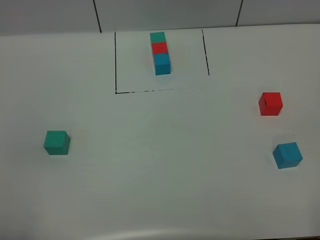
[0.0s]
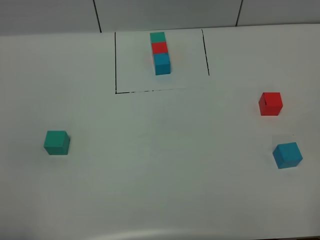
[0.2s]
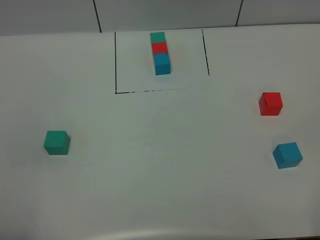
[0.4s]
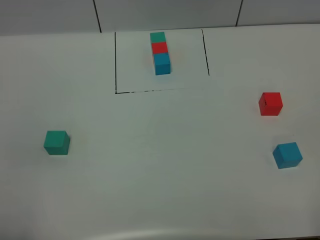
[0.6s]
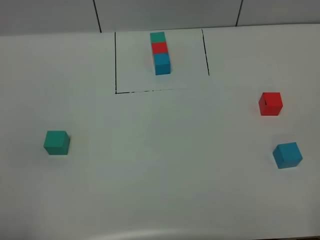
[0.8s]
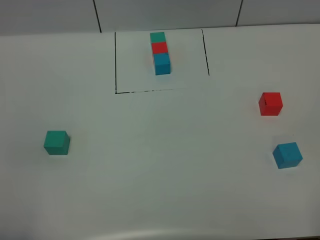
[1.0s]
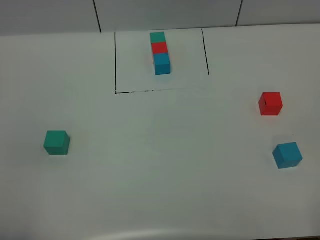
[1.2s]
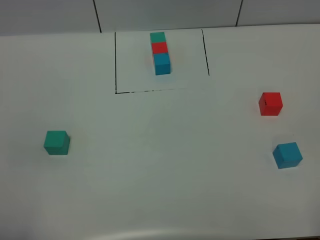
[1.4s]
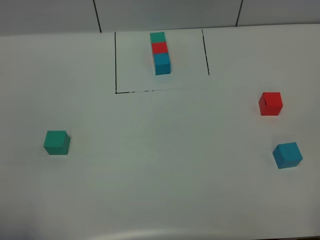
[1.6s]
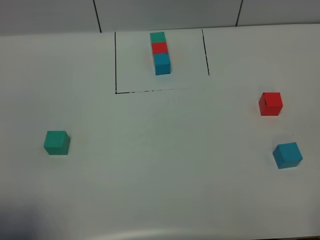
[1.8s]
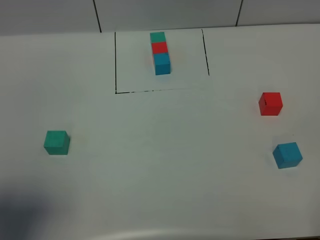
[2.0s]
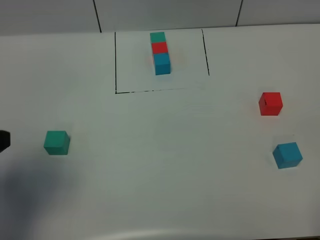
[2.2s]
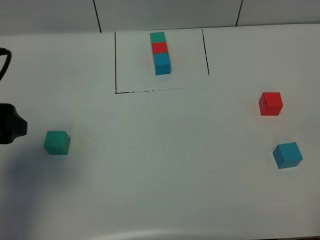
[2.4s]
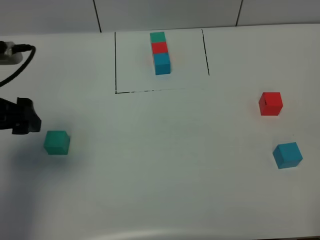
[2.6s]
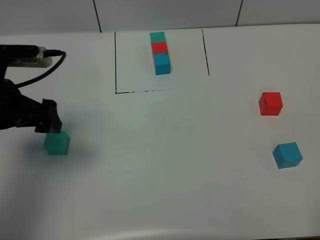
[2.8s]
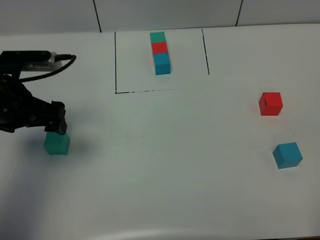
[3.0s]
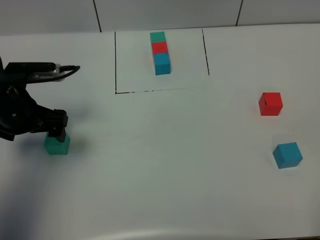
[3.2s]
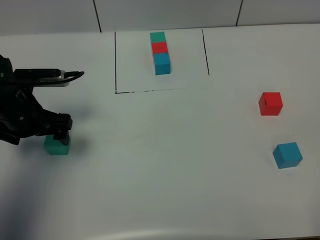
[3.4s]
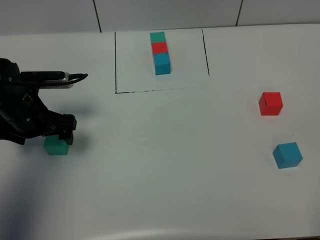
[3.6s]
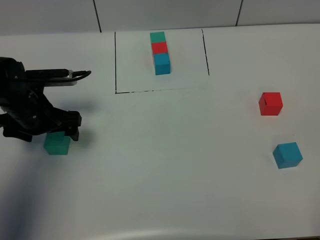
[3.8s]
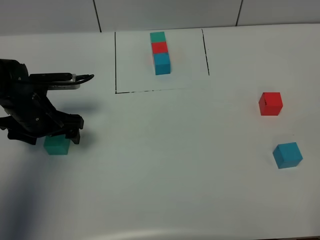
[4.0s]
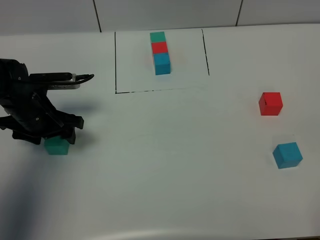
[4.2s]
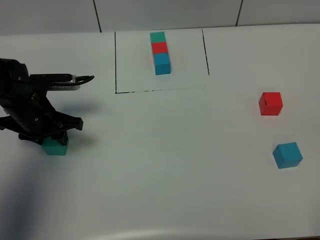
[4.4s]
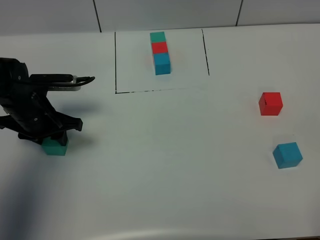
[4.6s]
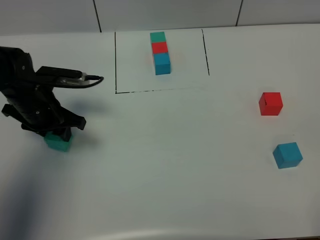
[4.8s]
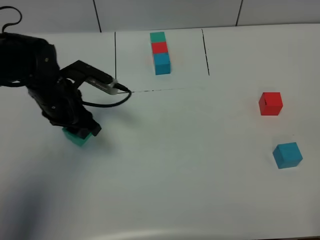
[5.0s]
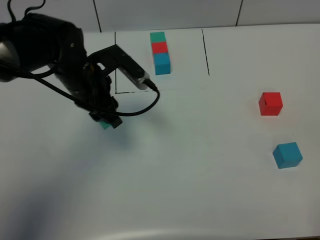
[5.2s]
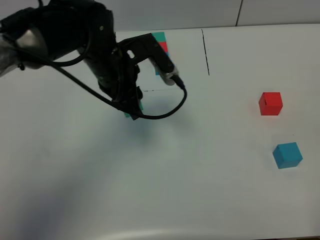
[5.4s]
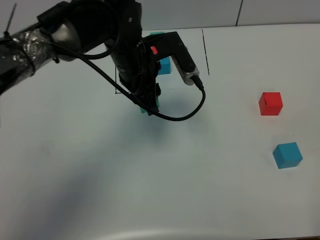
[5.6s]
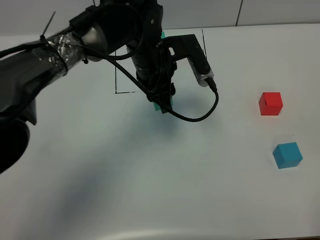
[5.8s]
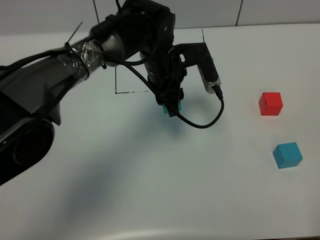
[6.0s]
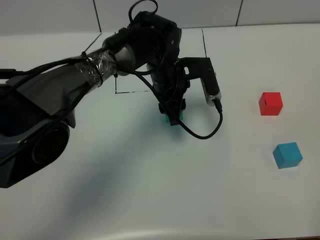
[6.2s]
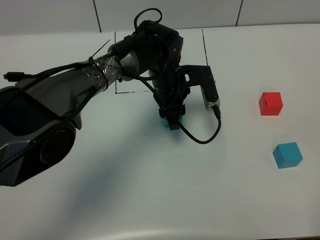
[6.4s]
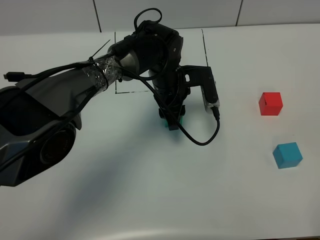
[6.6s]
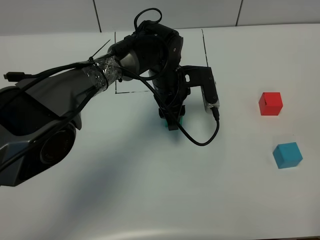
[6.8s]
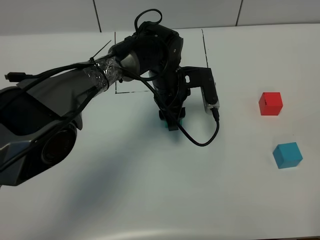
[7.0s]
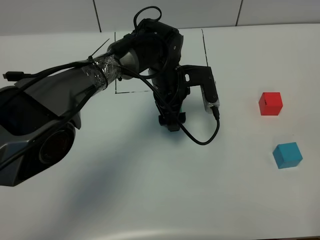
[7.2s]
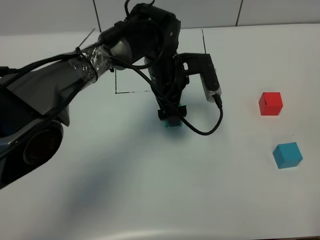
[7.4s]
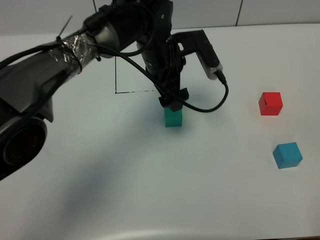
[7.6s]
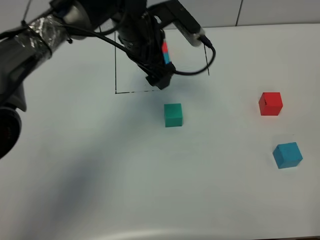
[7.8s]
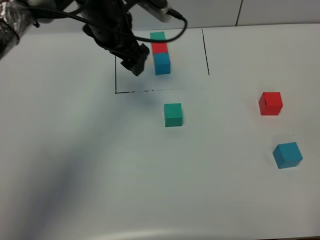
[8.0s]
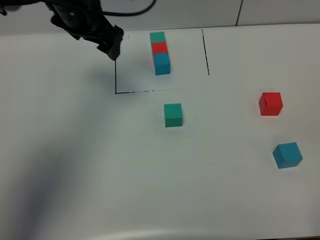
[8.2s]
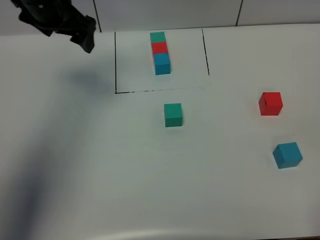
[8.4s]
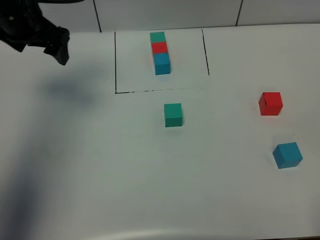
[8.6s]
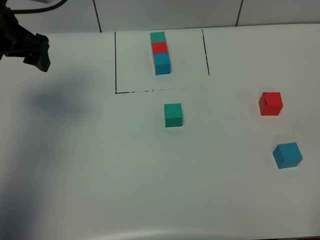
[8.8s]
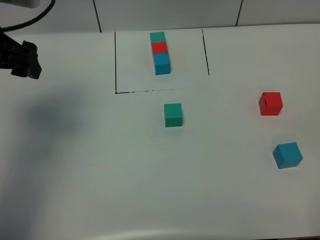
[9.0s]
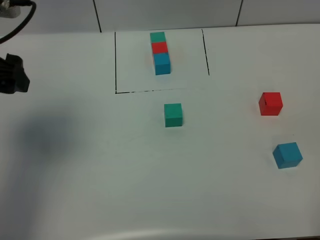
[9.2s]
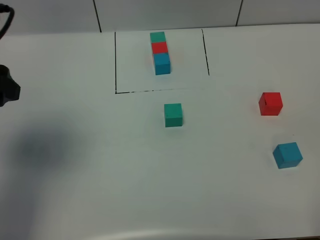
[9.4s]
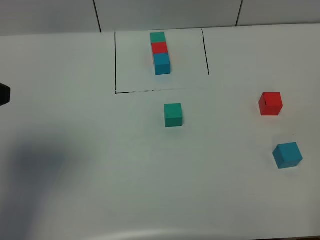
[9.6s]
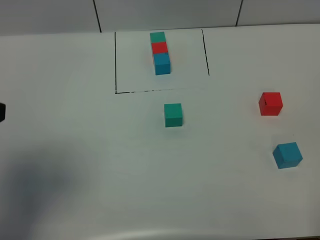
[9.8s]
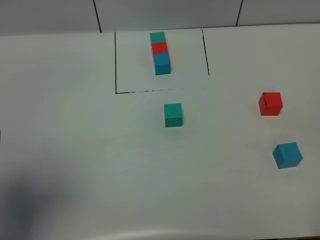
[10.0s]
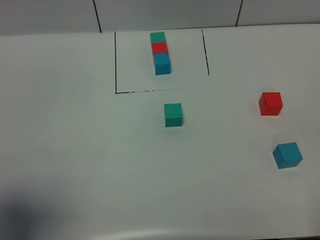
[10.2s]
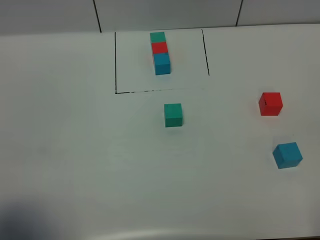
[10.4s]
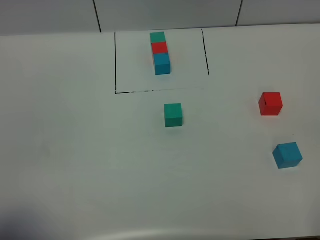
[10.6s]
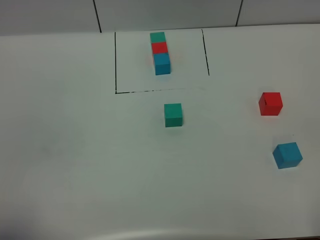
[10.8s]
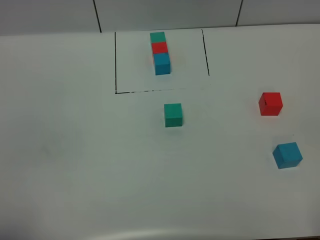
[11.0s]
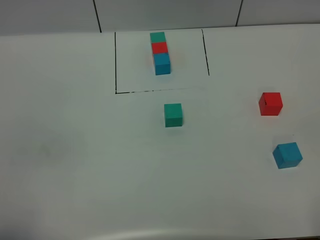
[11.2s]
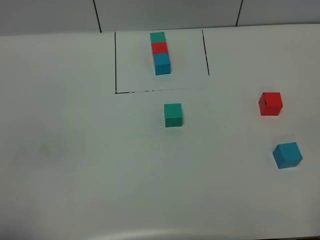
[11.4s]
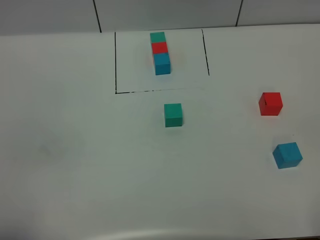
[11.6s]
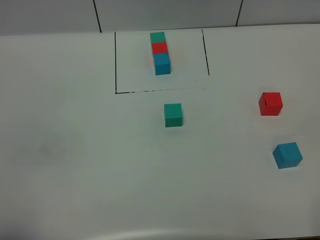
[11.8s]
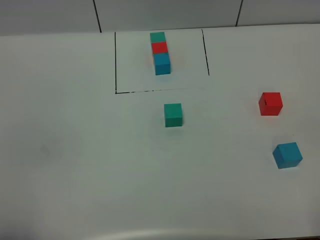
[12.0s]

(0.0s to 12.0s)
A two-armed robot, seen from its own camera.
Task of the whole recording: According to the building block template in front, assemble the scattered blocks together.
Step, 2.2s - 7.6s: Put the green cube in the center of the table.
1.6s - 3.0s: The left gripper moves forward, approximately 30 cm.
3.0s - 4.4s: The left gripper shifts about 10 cm downward, and closes up.
4.4s - 6.0s: The left gripper travels to the right by roughly 25 cm.
6.0s - 7.6s: The left gripper opens.
7.6s - 9.0s: The left gripper moves to the left and upward, roughly 30 cm.
9.0s - 10.4s: The left gripper travels backward by some 25 cm.
10.4s - 12.0s: The left gripper moves backward, approximately 5 cm, and closes up.

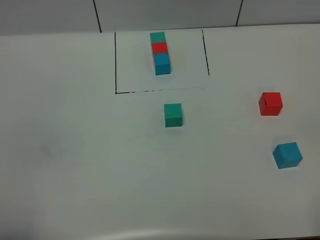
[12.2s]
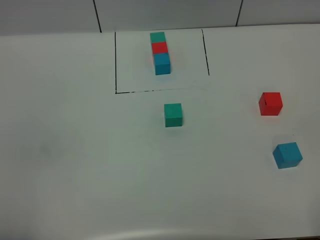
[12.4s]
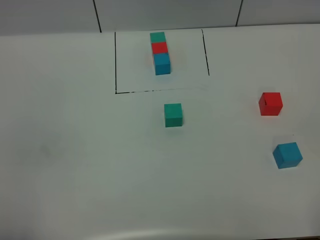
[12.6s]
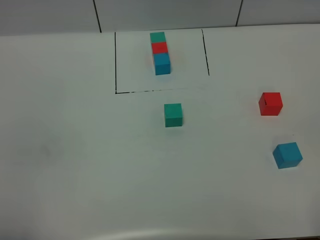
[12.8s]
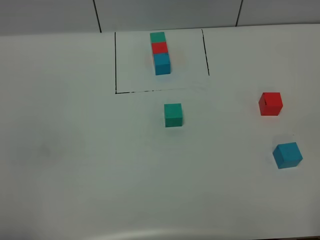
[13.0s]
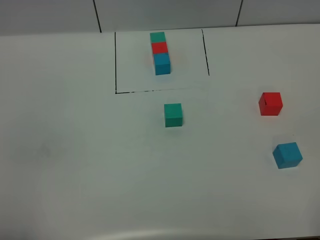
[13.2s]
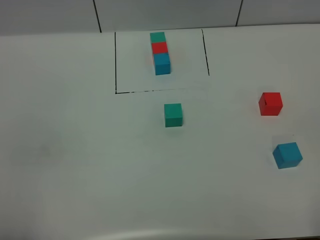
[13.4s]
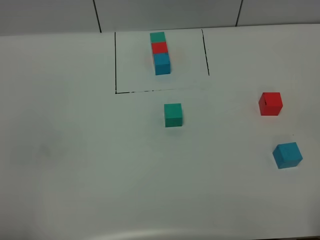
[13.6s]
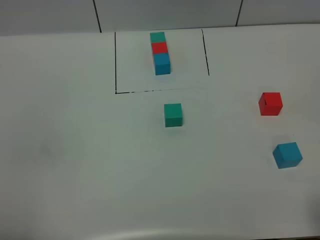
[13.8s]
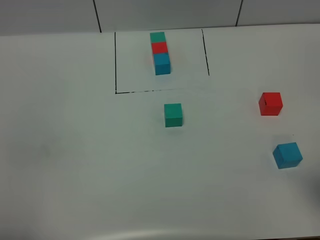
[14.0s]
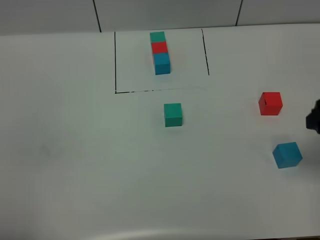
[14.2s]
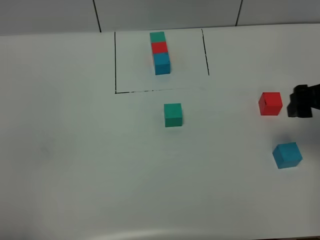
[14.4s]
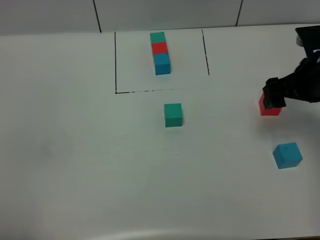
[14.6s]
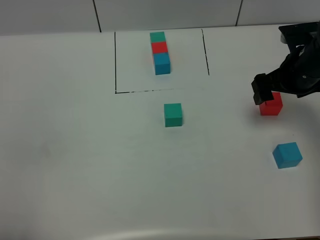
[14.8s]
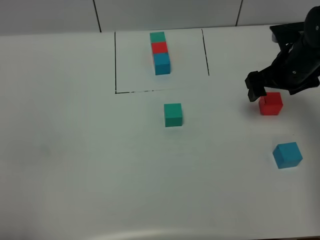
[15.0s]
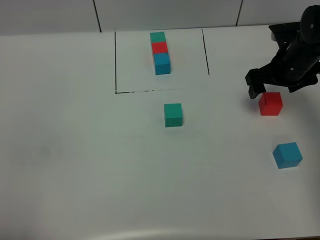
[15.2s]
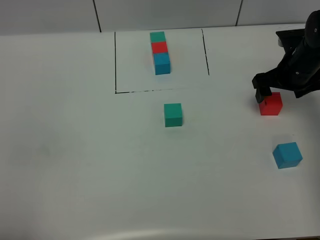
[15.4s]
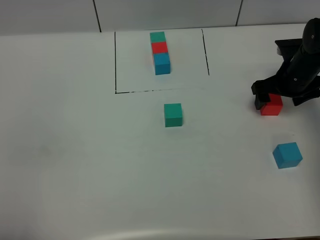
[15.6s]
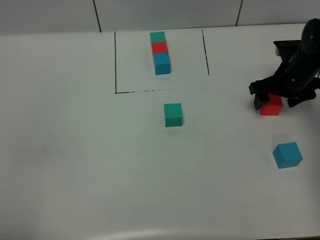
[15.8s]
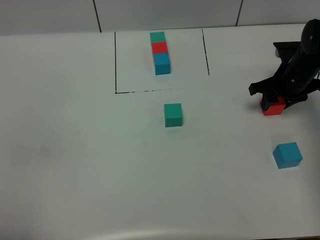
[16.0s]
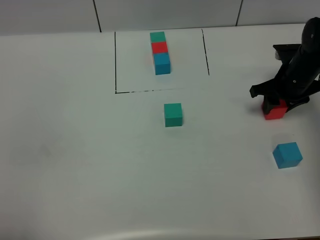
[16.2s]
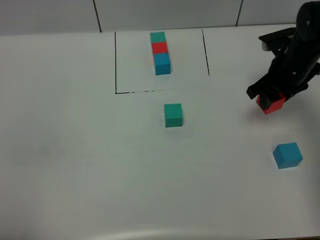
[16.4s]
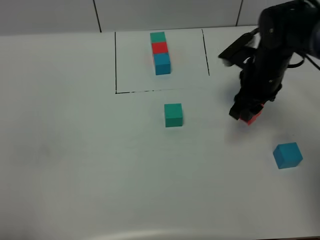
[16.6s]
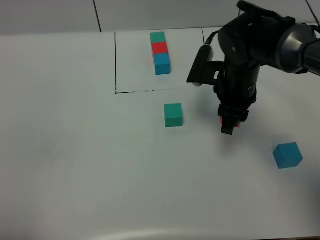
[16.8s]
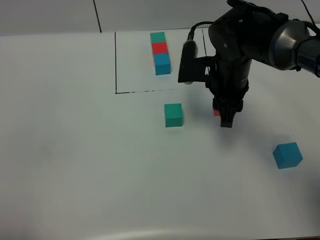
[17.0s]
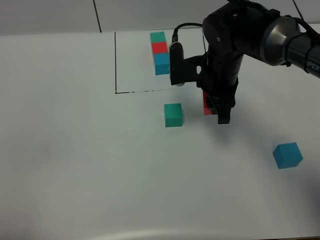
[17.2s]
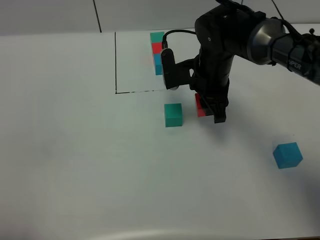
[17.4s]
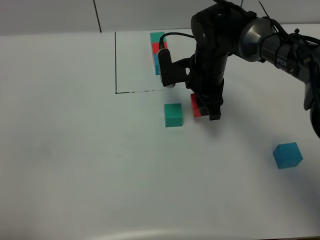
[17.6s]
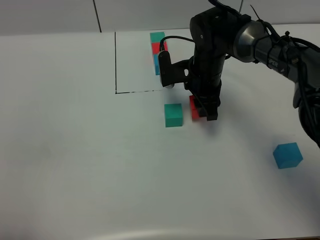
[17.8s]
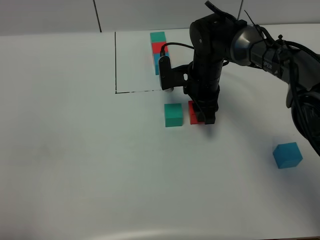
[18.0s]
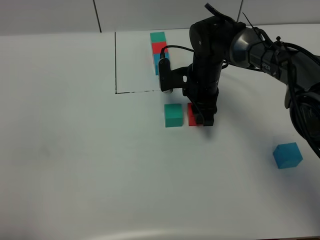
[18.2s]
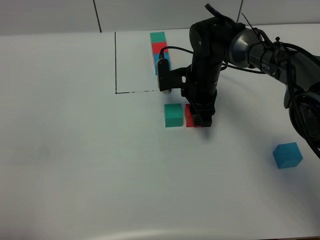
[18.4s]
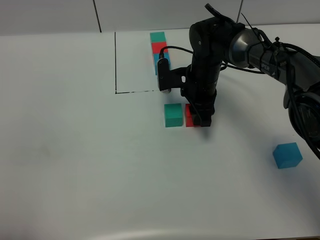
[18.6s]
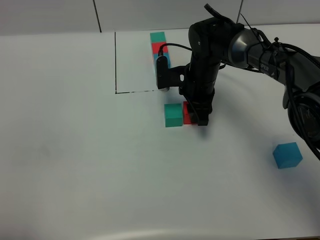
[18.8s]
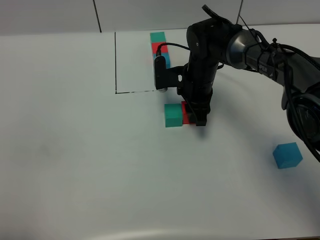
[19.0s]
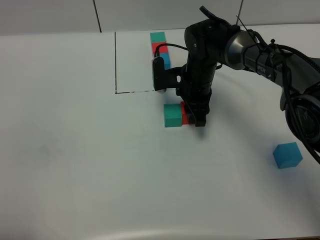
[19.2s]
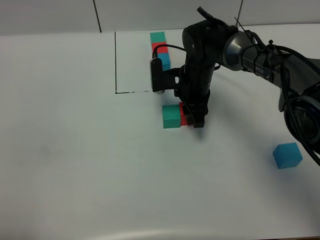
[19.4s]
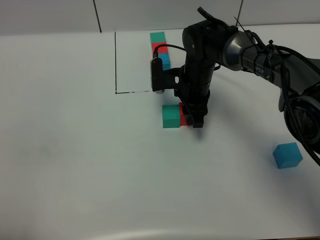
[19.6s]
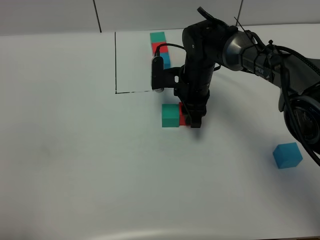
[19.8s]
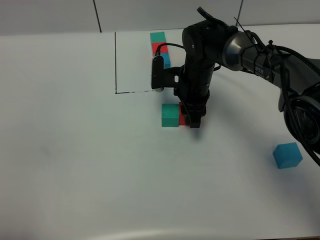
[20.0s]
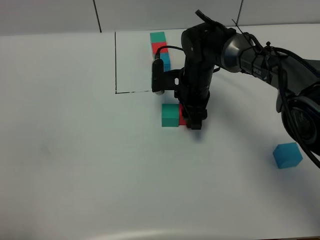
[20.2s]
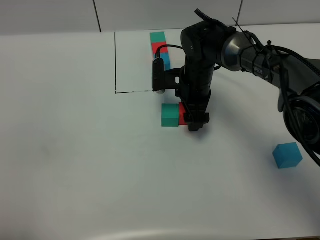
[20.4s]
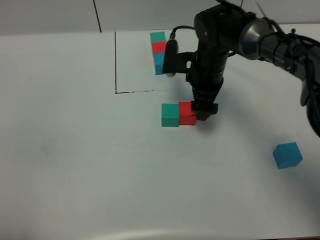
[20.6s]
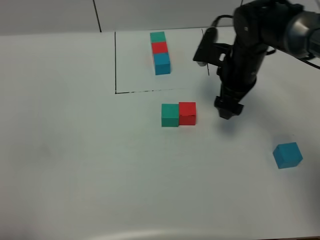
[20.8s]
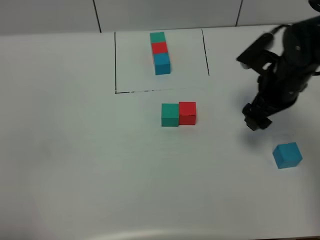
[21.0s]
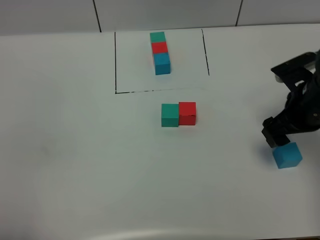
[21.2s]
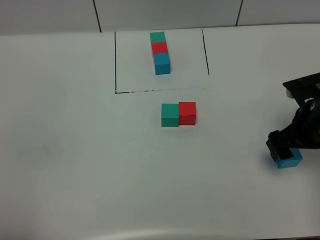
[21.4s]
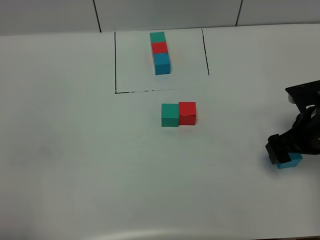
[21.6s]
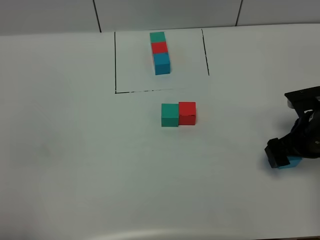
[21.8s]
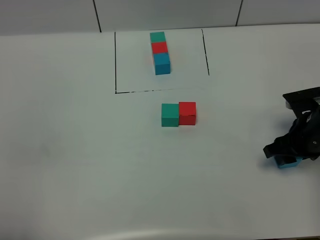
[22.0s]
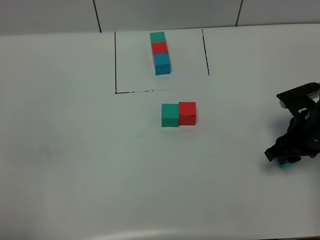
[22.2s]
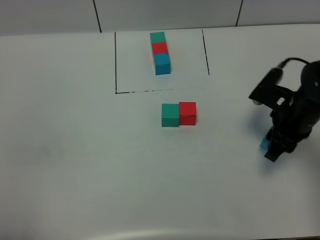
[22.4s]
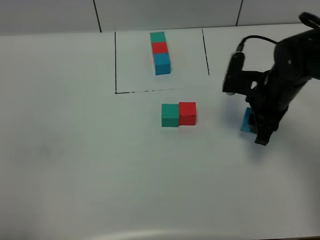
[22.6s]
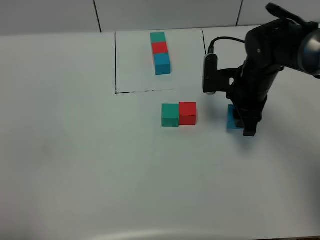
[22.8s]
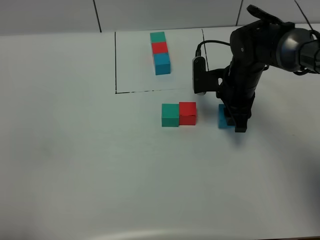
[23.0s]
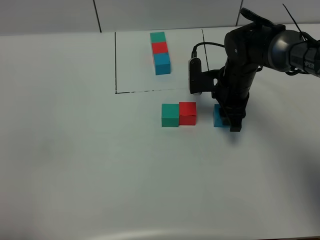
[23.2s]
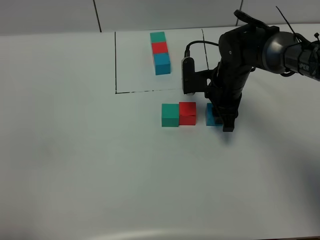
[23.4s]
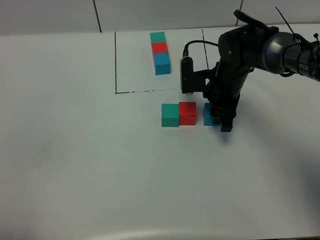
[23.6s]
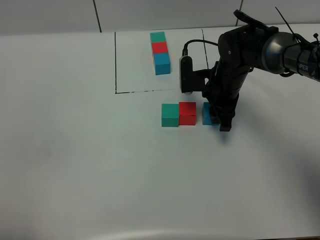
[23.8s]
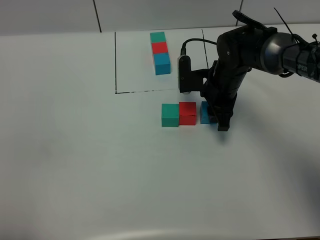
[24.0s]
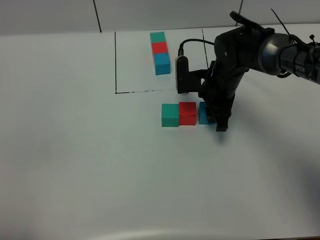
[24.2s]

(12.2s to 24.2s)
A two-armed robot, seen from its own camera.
Task of the whole recording: According to the building block template in front, assemble the scattered blocks together.
Step, 12.2s - 20.6s: Put the red cube on the right of the green cube.
13.8s - 15.2s: The right gripper travels forward by approximately 35 cm.
15.2s - 16.6s: The right gripper shifts some 10 cm to the left, and closes up.
16.6s - 18.2s: The right gripper heads to the left and downward, covering approximately 10 cm.
18.2s - 19.8s: The grippers stay close to where they were, moving slightly.
19.8s - 21.2s: The right gripper moves to the right and backward, some 20 cm, and opens.
21.2s - 22.6s: The right gripper travels to the left by roughly 5 cm, and closes its fingers.
22.6s - 24.2s: The right gripper shifts some 10 cm to the left and forward.
